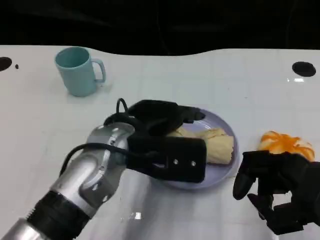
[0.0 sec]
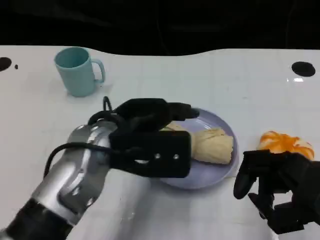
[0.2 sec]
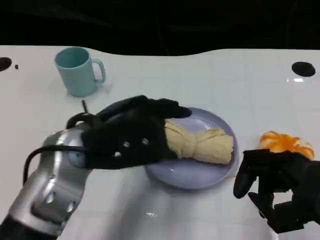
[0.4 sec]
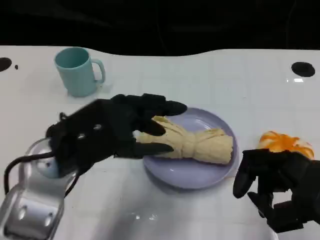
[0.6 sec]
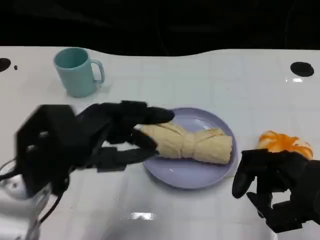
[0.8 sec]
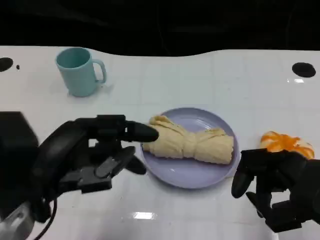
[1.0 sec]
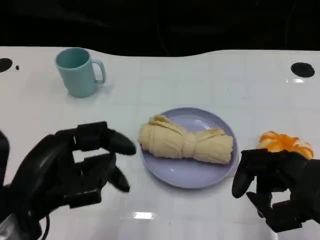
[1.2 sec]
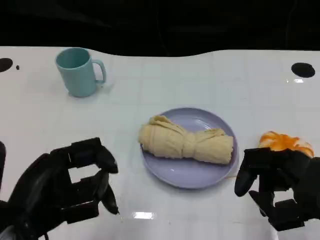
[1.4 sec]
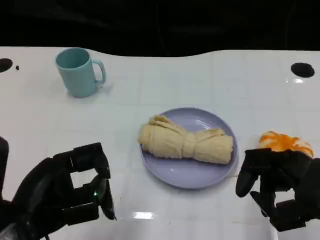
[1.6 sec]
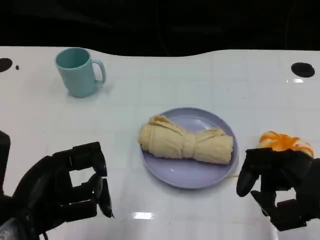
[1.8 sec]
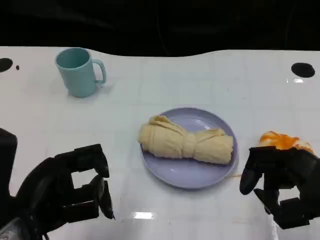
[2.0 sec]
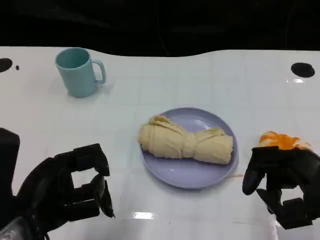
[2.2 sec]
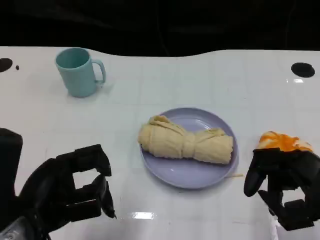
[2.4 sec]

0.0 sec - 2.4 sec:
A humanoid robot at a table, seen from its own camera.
Task of the whole recording: Grasp the towel on the left side of the plate with the left hand and place it into the plate.
0.0 sec - 1.2 sec: The left hand shifts approximately 15 cm to the left and backward.
1.2 sec - 2.4 sec: The hands make only small movements.
